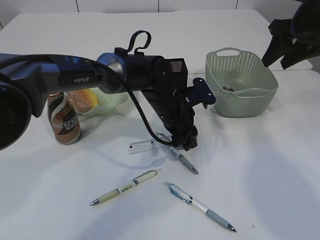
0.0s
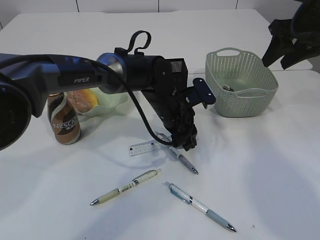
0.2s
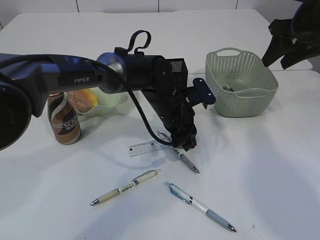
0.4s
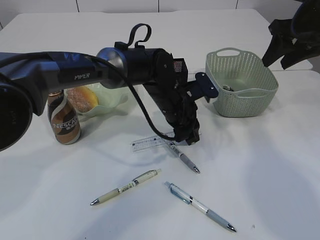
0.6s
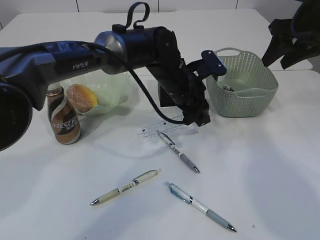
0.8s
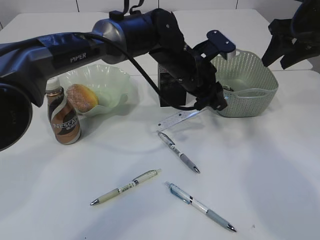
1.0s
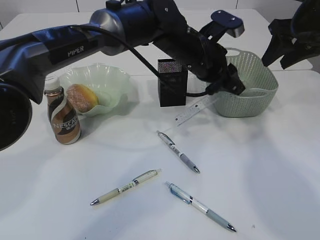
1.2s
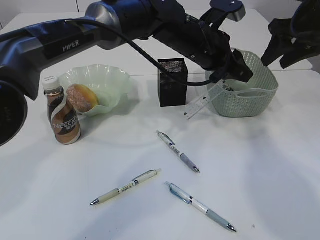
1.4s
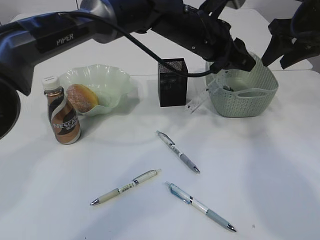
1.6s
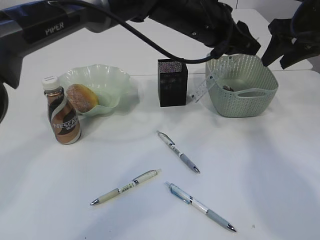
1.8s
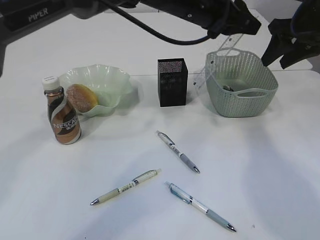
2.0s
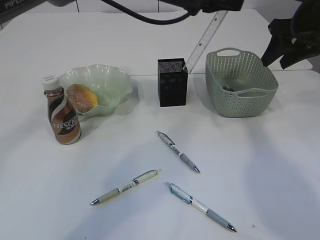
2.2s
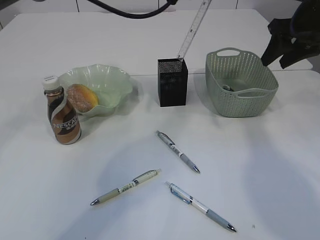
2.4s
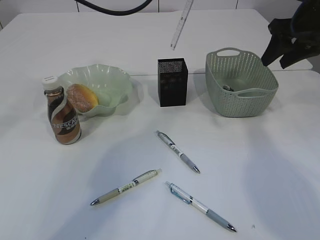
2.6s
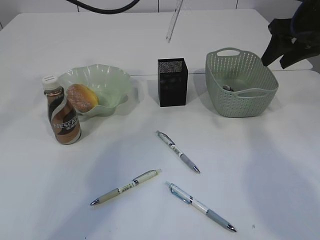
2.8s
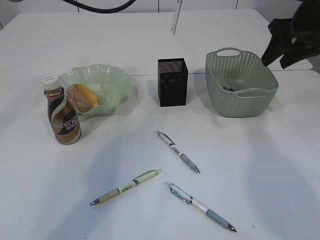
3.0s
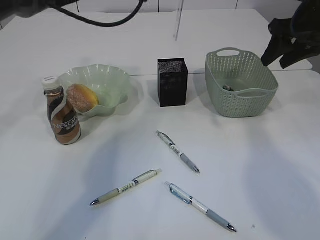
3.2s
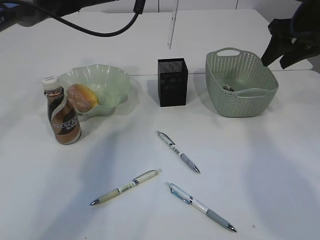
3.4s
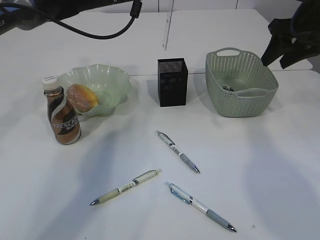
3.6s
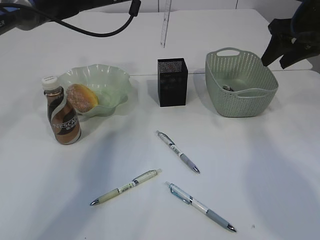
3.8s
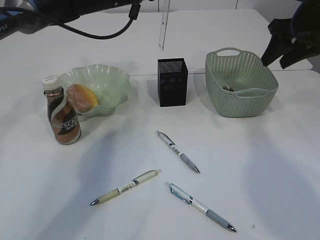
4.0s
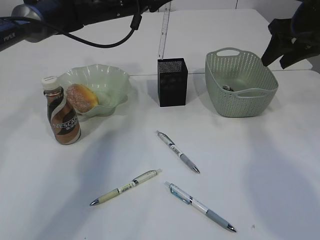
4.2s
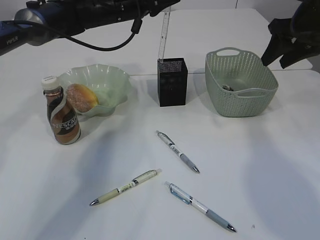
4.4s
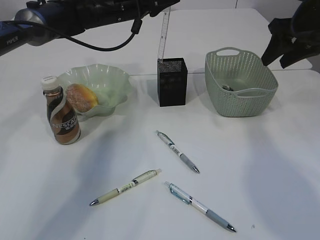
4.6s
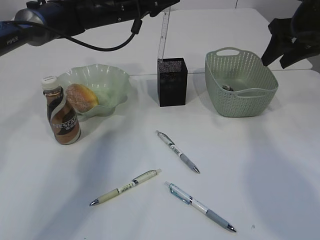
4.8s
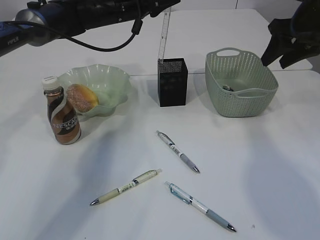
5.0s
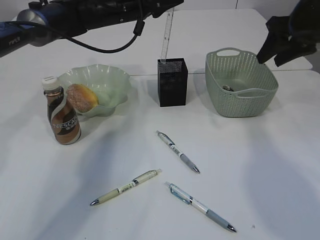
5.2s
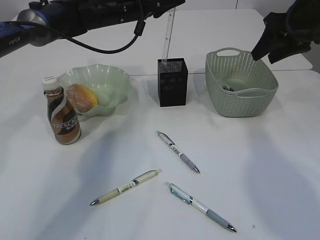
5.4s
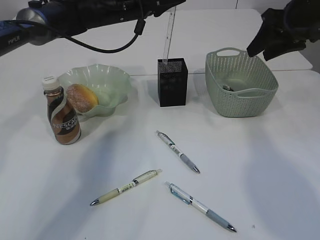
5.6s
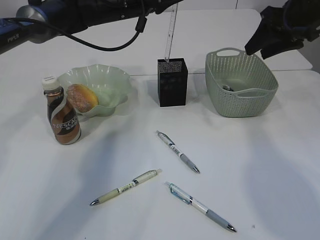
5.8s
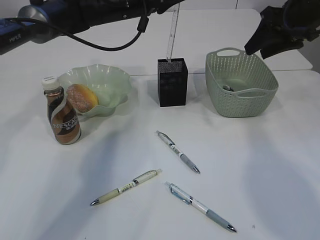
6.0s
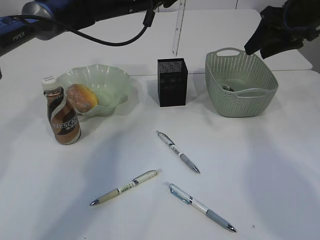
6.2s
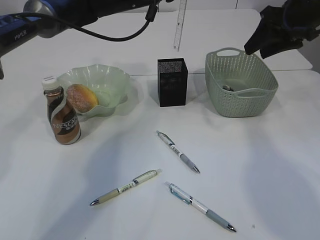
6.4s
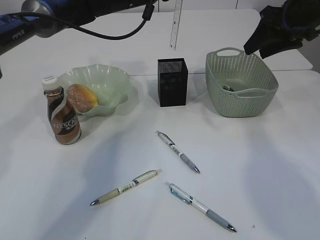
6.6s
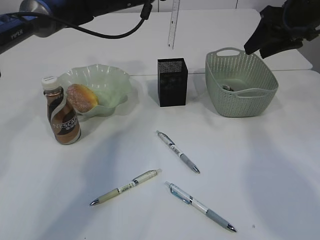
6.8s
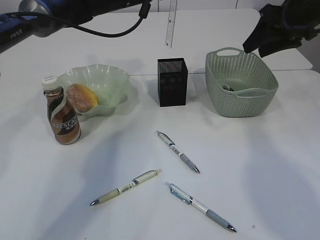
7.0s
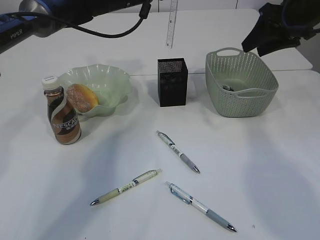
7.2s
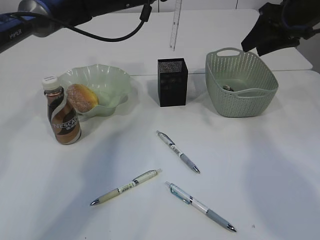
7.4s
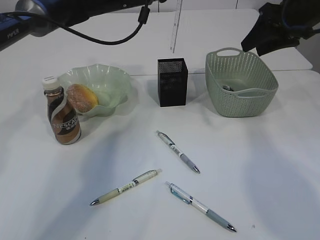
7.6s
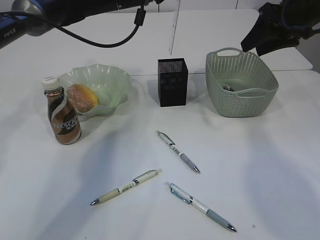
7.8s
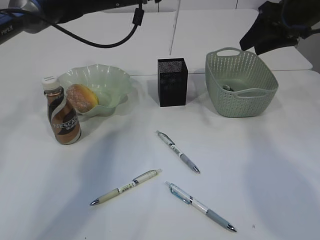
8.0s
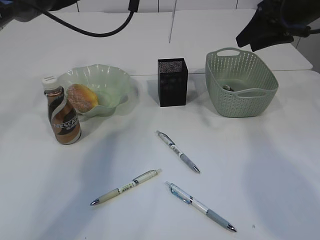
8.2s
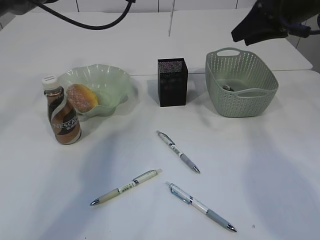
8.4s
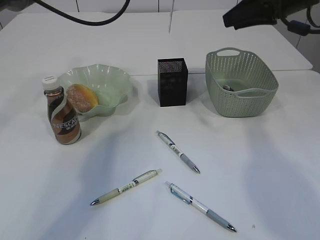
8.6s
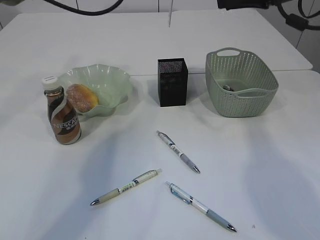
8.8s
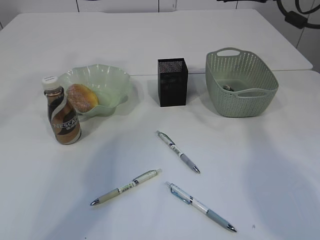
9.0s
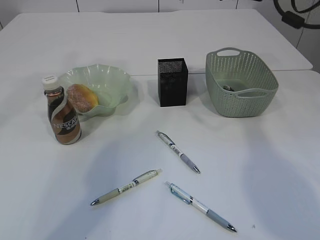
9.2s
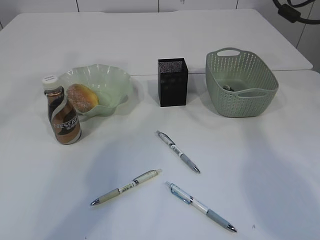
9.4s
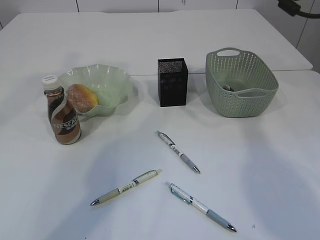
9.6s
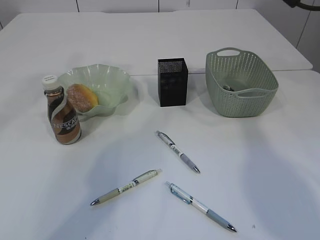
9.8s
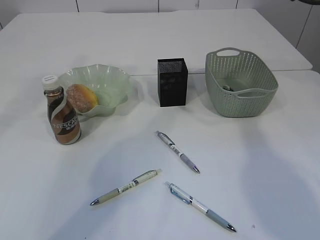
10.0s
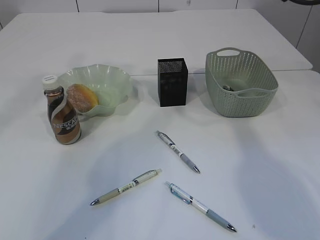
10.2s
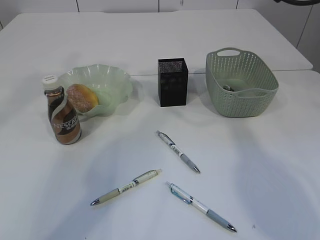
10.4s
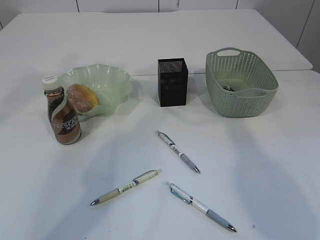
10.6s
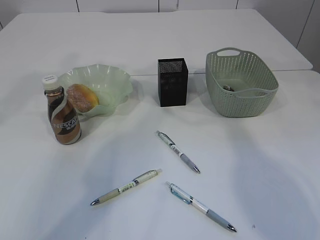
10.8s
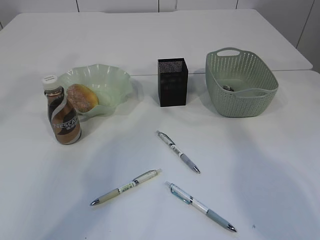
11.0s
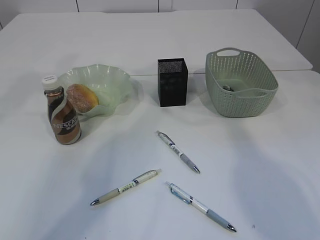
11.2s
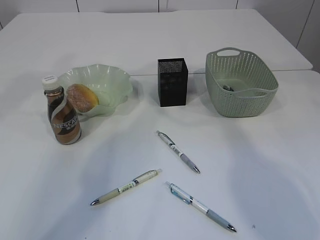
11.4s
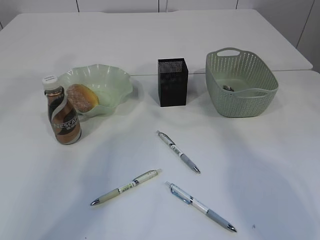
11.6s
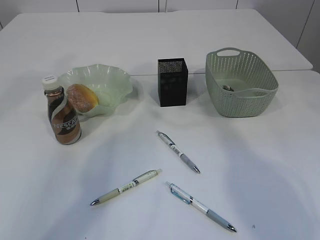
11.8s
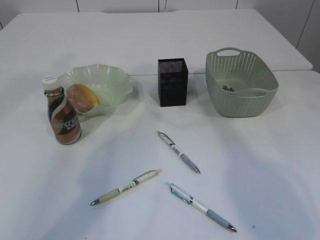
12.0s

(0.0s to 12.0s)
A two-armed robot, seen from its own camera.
0.0s - 1.6s: The left gripper travels upward by about 15 cm.
1.6s - 3.0s: The left gripper travels to the left, upward and forward by about 15 cm.
3.0s - 4.4s: The left gripper goes about 10 cm downward and forward.
4.4s - 7.6s: The grippers move only a little.
7.6s - 9.0s: The left gripper shifts about 10 cm upward. Meanwhile the right gripper ends up about 5 cm from where it was.
9.0s - 10.4s: The right gripper ends up some 5 cm from where it was.

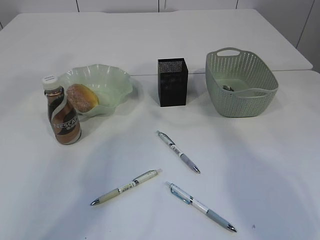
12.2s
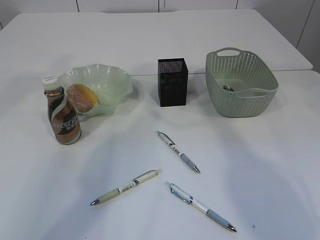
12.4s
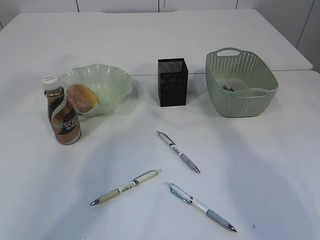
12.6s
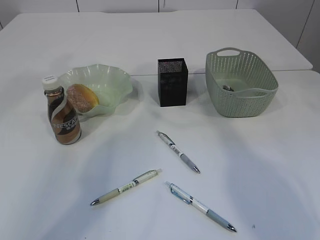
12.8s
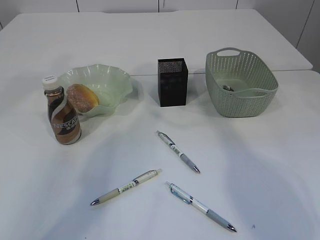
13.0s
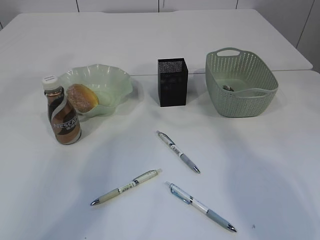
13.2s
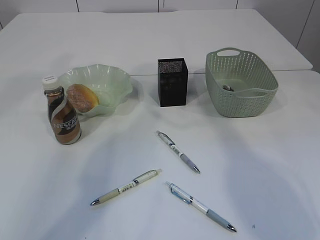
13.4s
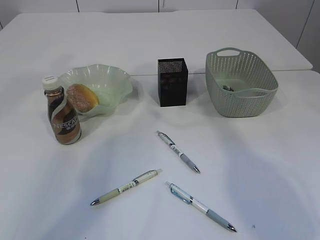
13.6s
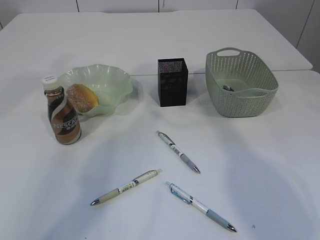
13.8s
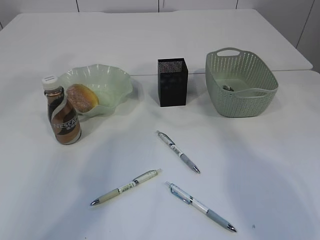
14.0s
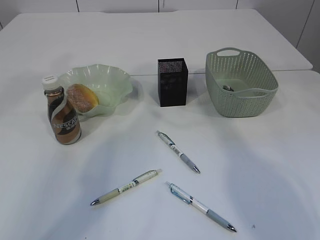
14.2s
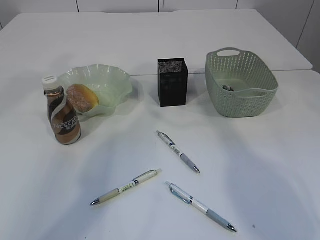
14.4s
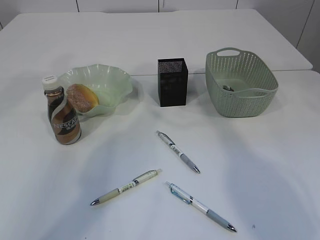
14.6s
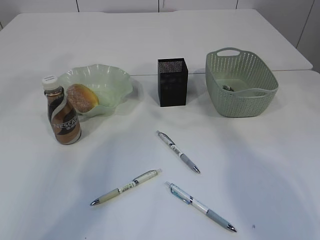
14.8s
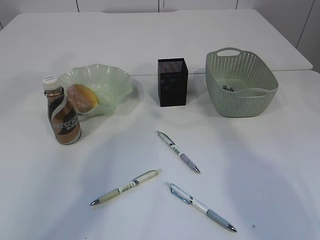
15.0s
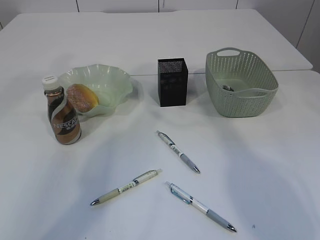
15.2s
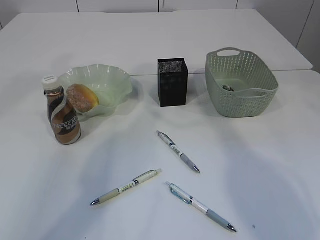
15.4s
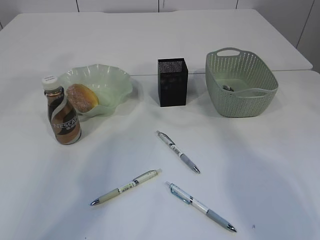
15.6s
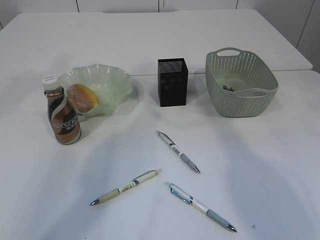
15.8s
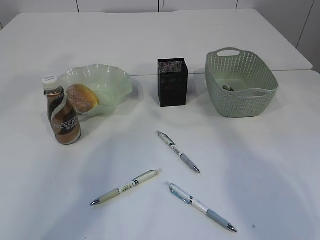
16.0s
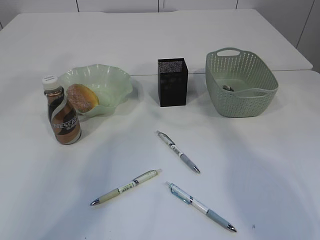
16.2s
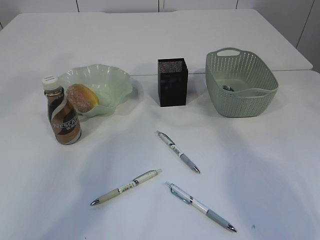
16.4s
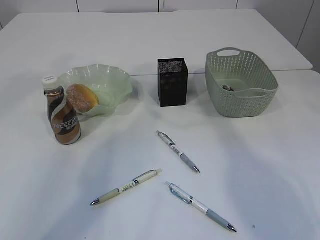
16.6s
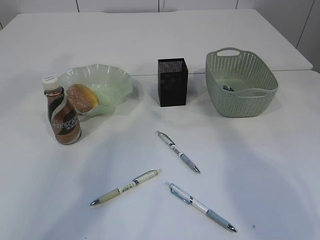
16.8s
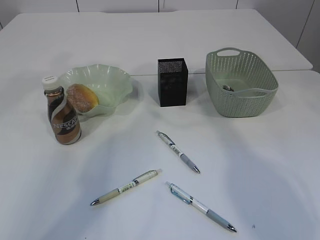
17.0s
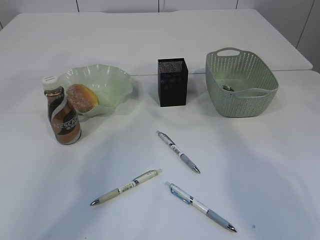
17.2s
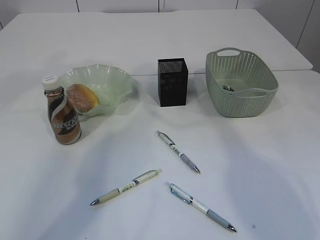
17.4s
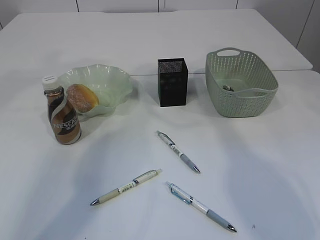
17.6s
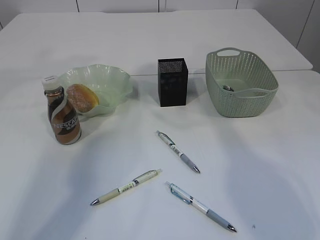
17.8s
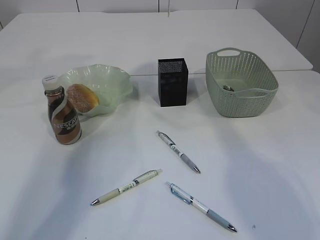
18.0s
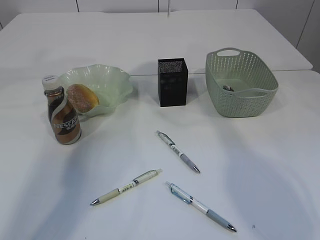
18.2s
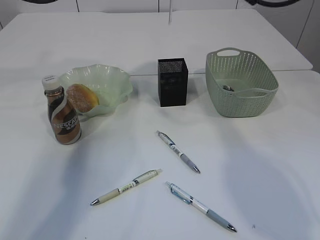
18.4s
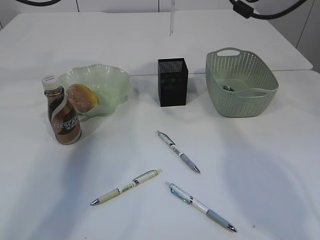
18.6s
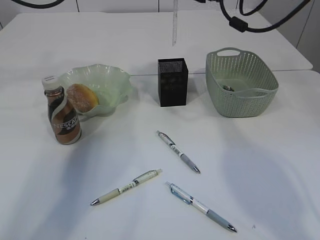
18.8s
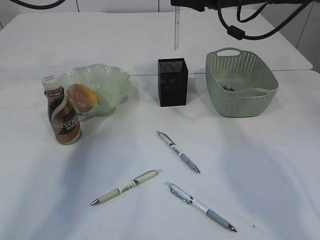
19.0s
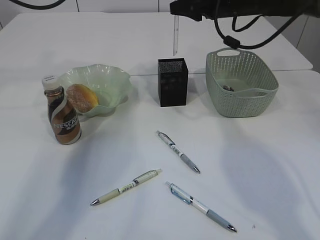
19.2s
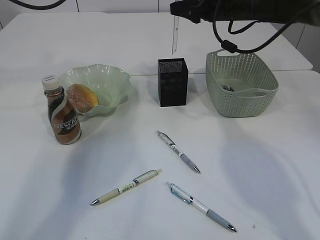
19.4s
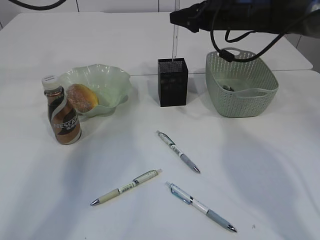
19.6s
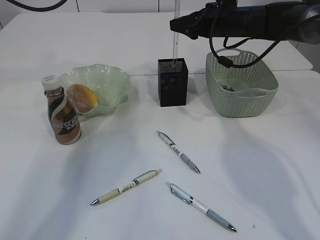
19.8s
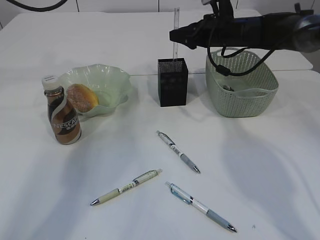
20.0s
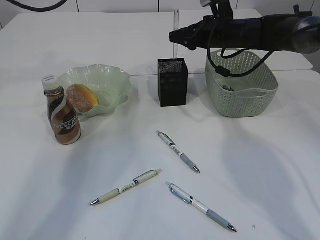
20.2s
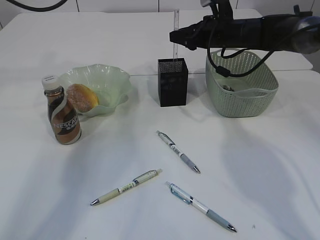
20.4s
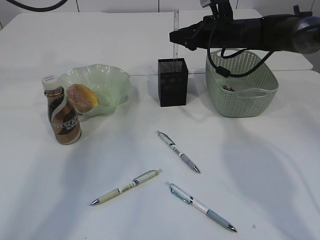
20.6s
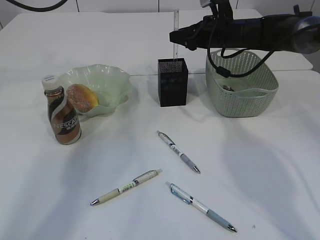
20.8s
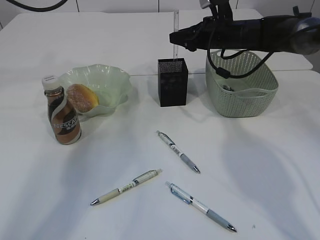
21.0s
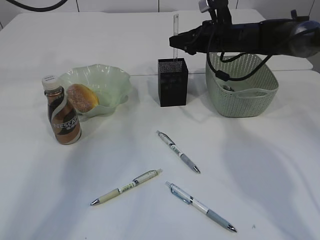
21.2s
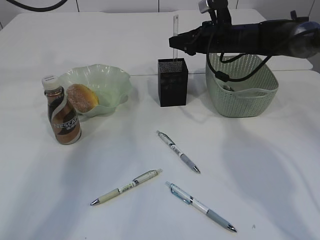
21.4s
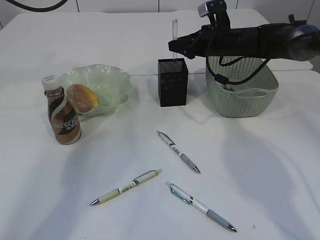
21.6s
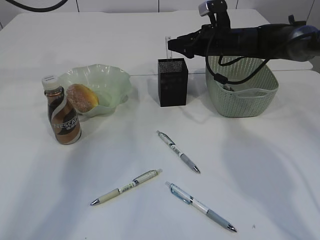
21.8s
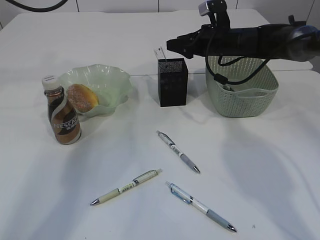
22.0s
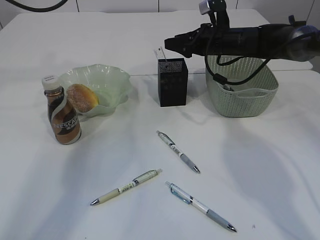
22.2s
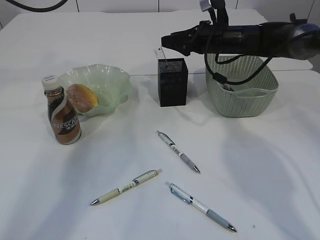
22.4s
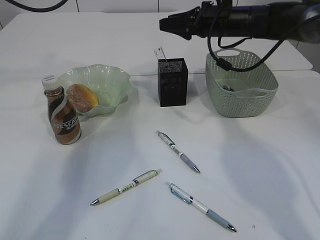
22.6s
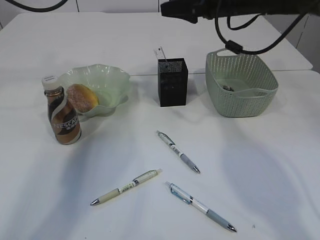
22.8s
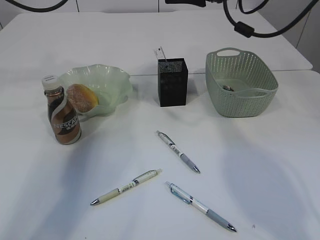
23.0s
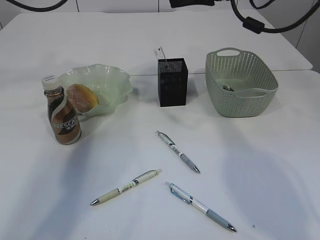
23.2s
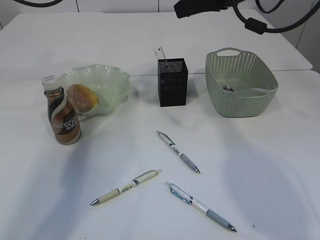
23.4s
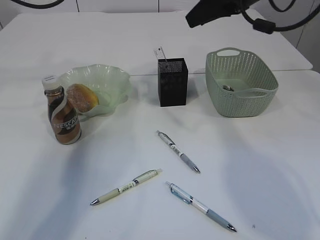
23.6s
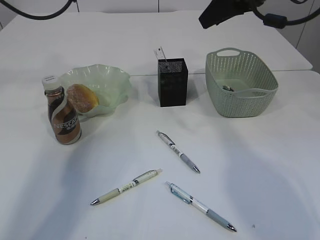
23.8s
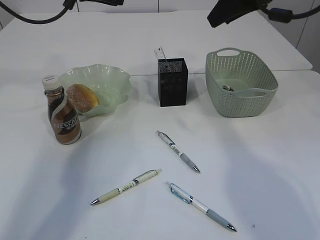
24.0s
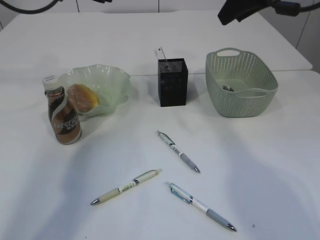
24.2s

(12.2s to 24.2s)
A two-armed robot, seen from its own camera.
Step, 12.2s - 18.8s: Hand over the ruler.
Step, 19.0s - 22.4s: Place the ruler into the pen holder.
13.8s - 15.2s: Both grippers stay put.
16.6s - 18.2s: The left gripper shifts approximately 10 cm to the left.
18.2s - 19.8s: The left gripper closes its fingers. Meanwhile the right gripper goes about 20 cm downward and forward.
19.8s - 21.2s: The grippers move only a little.
21.2s - 22.6s: The right gripper moves approximately 5 cm.
22.6s - 24.2s: The right gripper shifts some 15 cm upward and backward.
